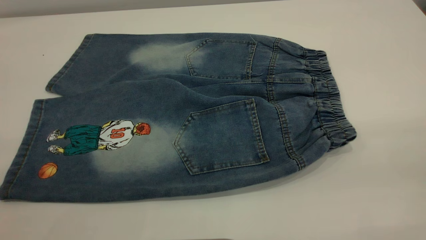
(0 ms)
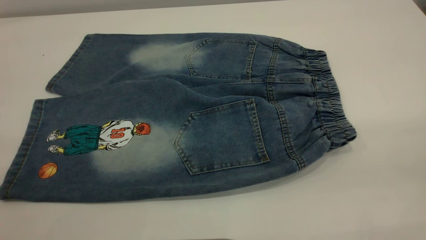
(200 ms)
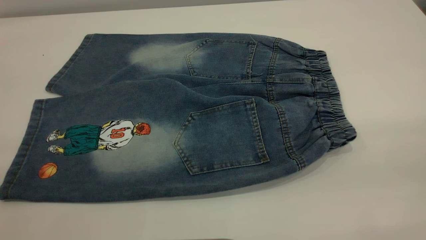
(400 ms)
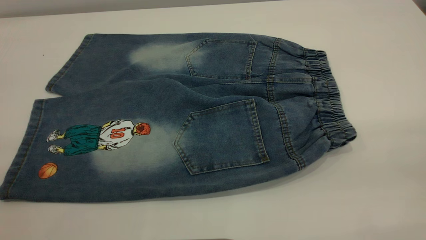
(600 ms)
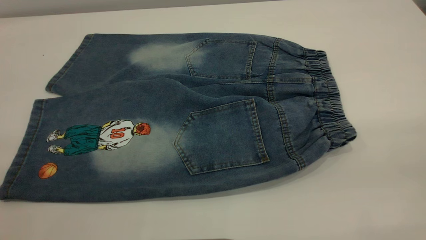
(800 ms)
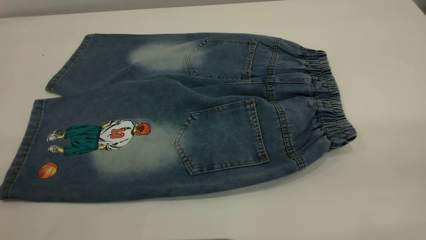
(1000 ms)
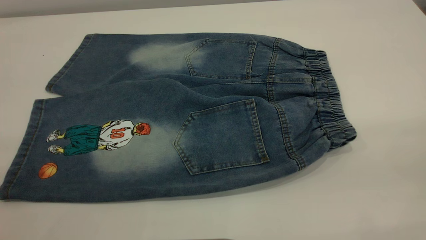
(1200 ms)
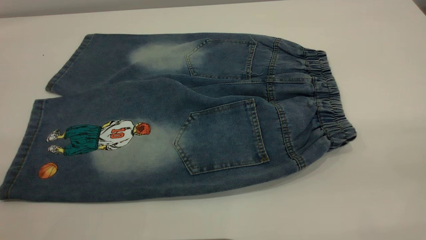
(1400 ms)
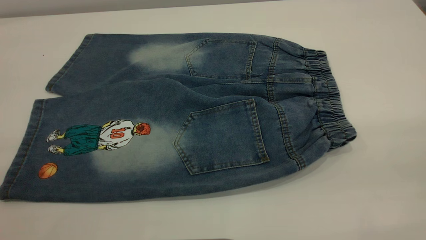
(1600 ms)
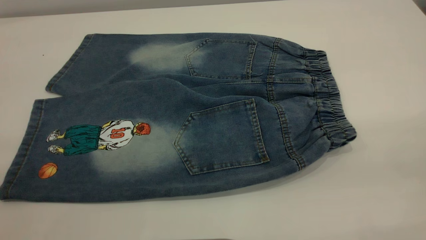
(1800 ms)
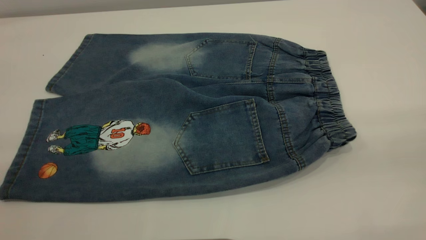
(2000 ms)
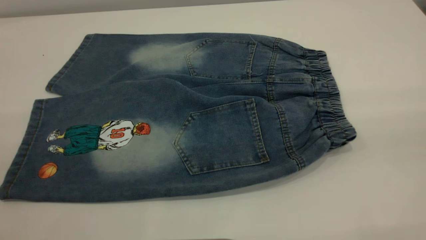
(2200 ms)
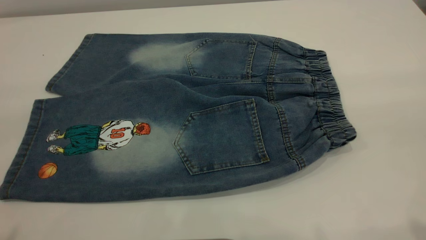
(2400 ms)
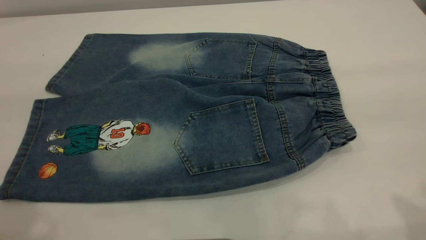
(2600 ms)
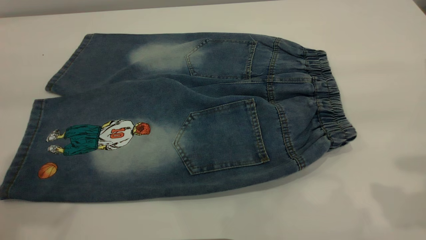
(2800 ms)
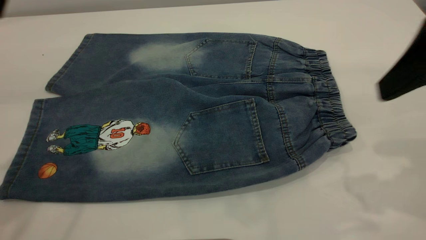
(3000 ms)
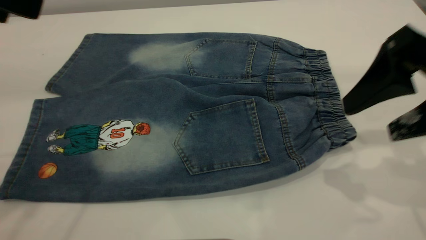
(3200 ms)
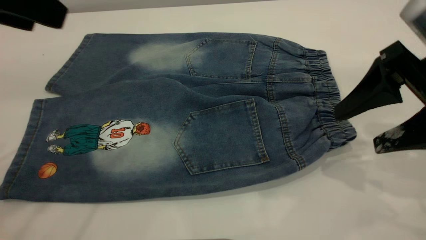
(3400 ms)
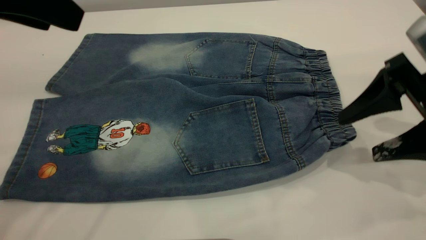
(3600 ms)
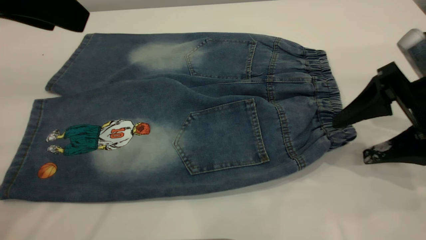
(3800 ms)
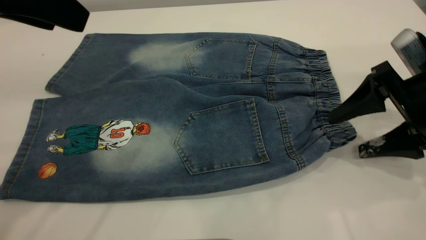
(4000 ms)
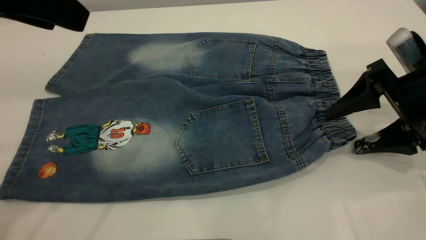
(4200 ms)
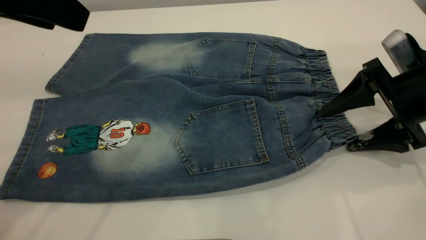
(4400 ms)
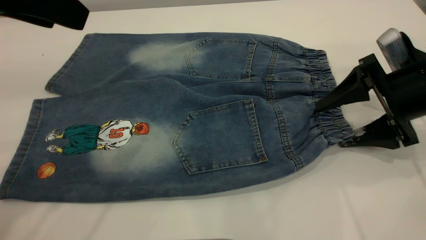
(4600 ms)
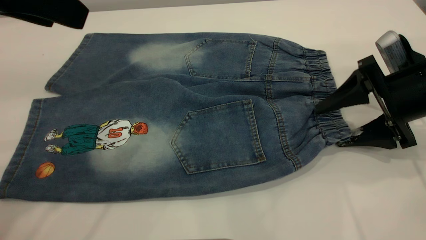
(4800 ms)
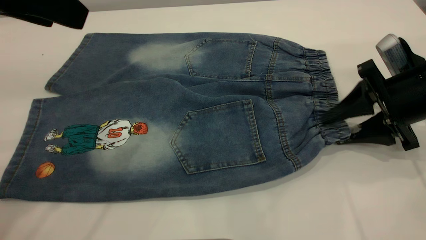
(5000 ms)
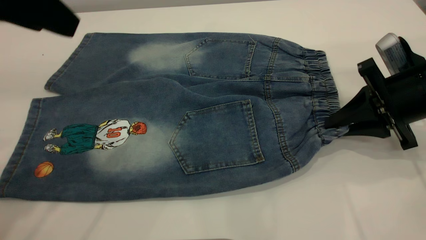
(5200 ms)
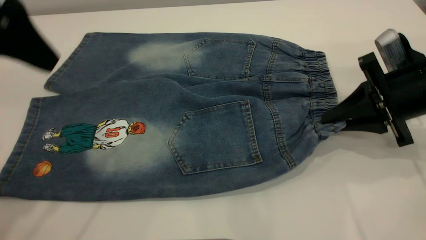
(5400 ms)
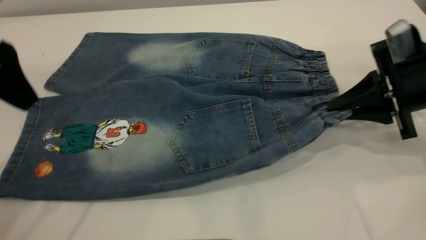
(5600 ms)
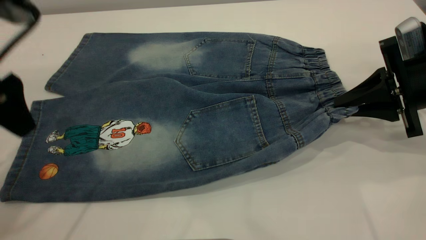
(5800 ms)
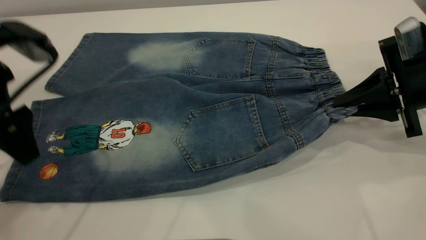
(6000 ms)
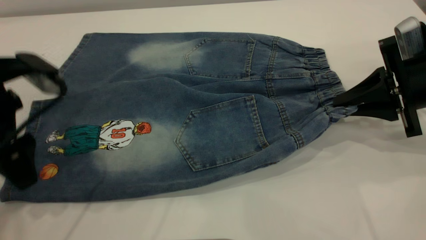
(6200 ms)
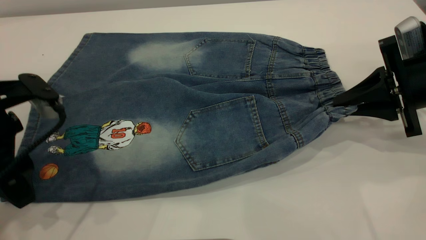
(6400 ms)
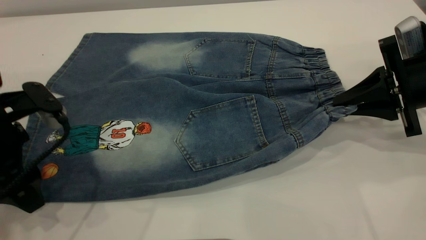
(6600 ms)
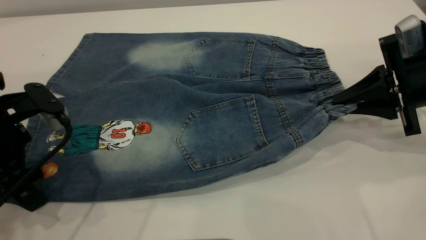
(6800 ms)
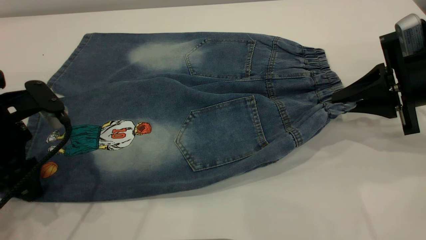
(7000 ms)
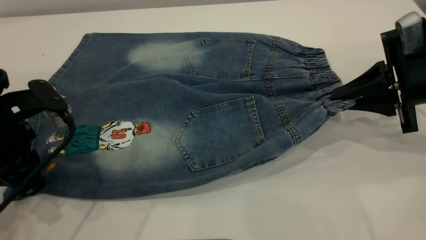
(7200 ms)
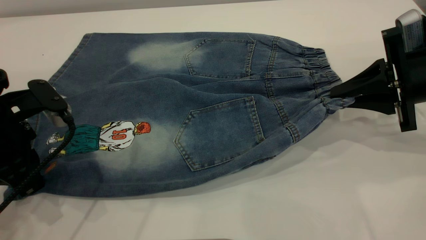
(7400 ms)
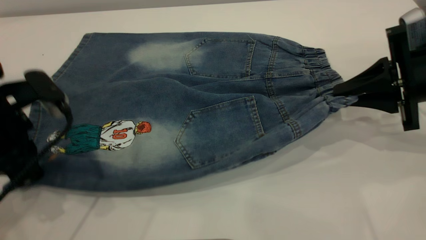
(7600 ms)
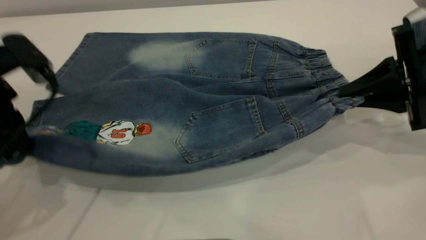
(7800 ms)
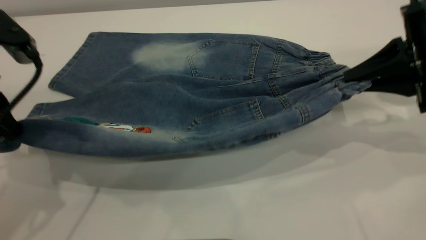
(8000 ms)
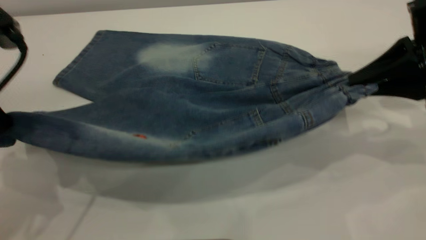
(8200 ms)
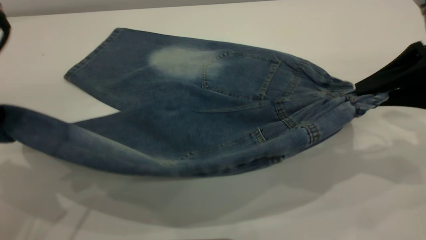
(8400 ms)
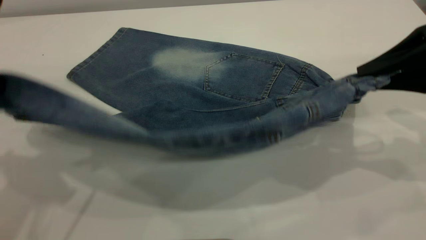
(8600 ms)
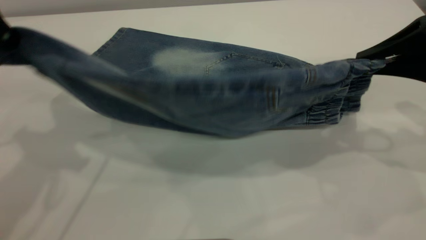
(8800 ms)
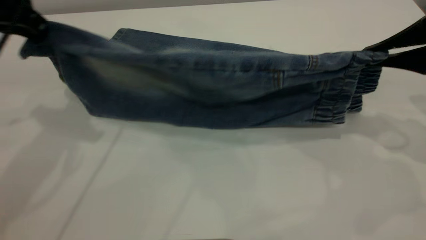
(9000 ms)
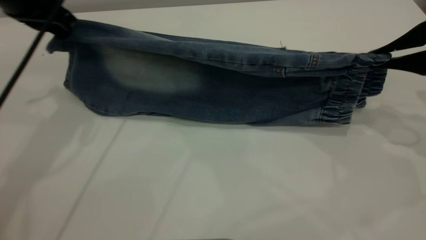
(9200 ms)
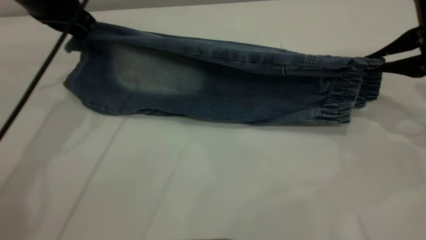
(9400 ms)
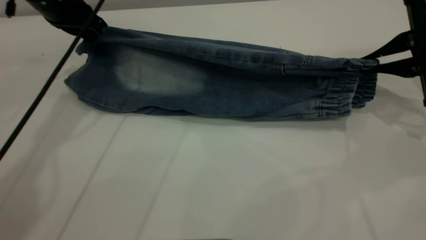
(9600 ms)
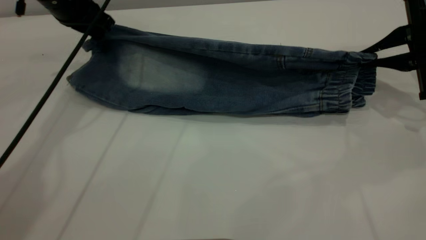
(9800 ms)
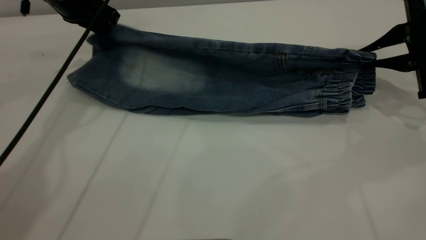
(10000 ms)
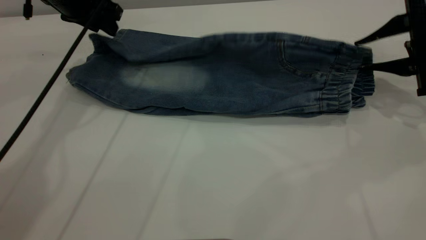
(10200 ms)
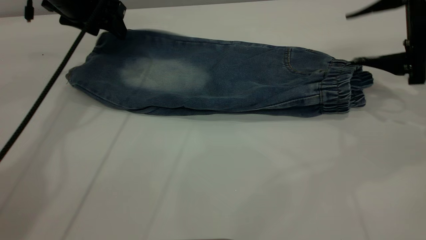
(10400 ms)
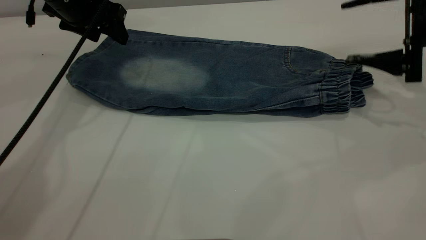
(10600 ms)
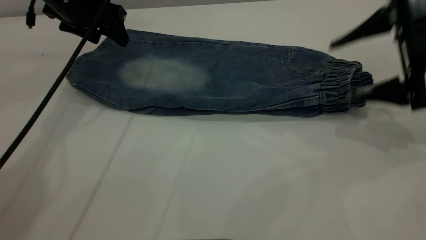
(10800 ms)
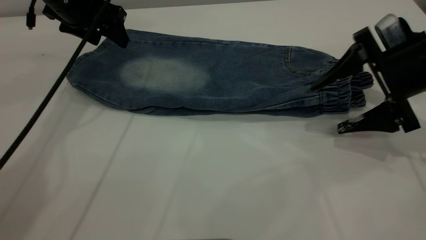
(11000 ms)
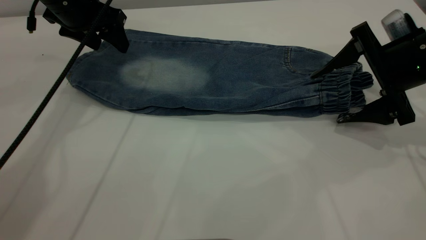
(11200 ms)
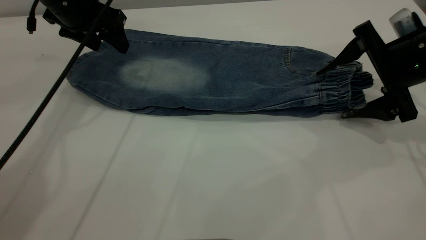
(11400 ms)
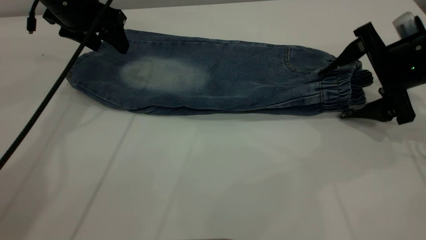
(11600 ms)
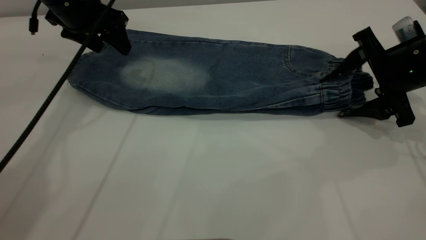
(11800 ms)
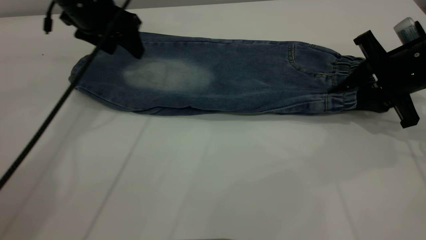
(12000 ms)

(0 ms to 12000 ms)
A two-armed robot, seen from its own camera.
Step, 0 ms - 10400 ms: Fold the bottom of the pants upward.
0 ms - 1600 ms: Neither gripper changes place.
1600 ms - 3000 ms: The right gripper travels forward and downward by roughly 25 cm.
3000 ms - 4400 ms: The left gripper moves some 5 cm; the right gripper moves downward and forward, roughly 15 cm.
4400 ms - 6000 ms: The right gripper closes its fingers, while the left gripper goes some 10 cm downward.
6000 ms - 7600 ms: The left gripper closes up.
7600 ms - 9000 ms: The left gripper goes about 15 cm upward and forward, while the right gripper is displaced upward by approximately 5 cm.
9000 ms - 10400 ms: The right gripper moves forward, roughly 5 cm, and opens its fingers. Meanwhile the left gripper goes some 15 cm forward and downward, and opens.
10400 ms - 12000 ms: The right gripper changes place by approximately 5 cm, and closes.

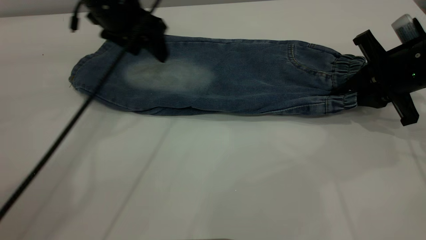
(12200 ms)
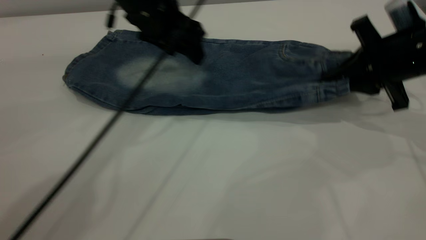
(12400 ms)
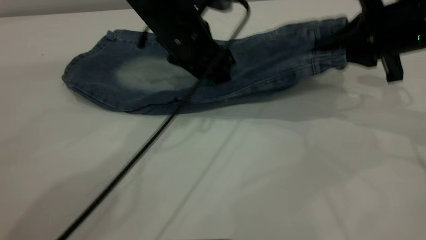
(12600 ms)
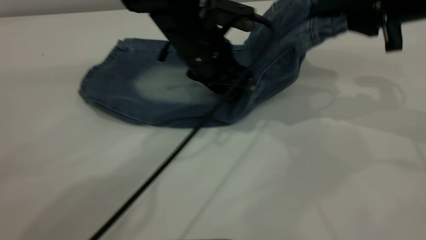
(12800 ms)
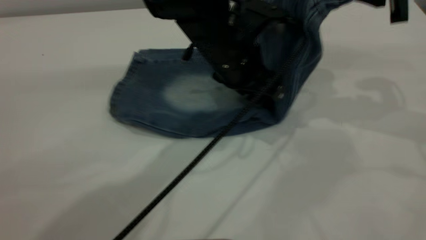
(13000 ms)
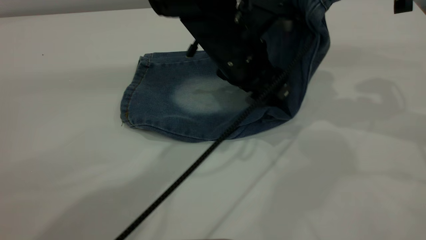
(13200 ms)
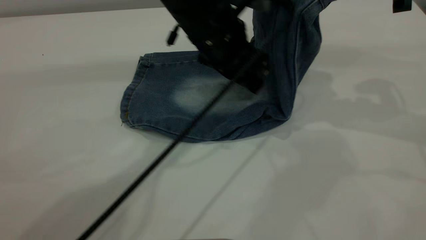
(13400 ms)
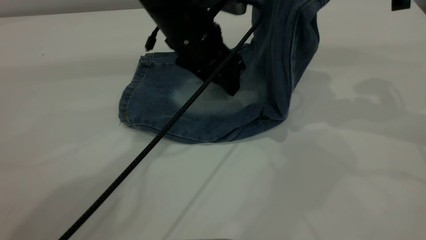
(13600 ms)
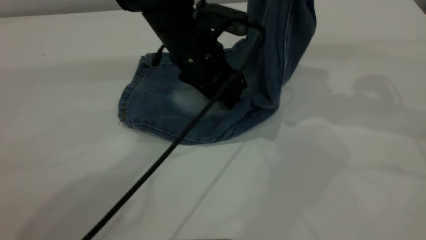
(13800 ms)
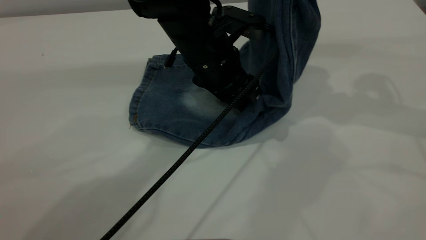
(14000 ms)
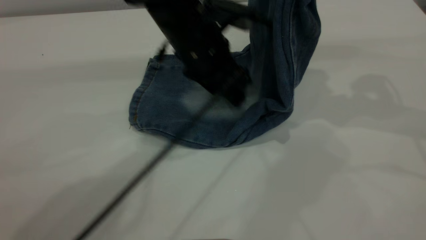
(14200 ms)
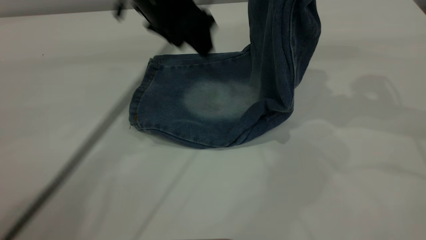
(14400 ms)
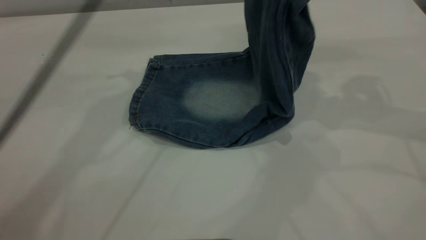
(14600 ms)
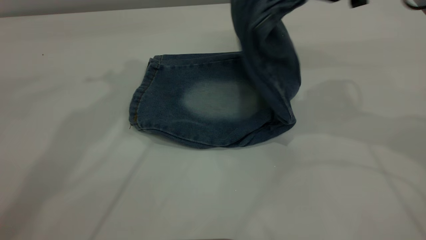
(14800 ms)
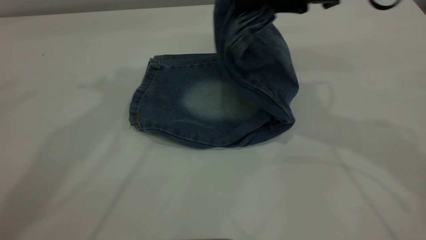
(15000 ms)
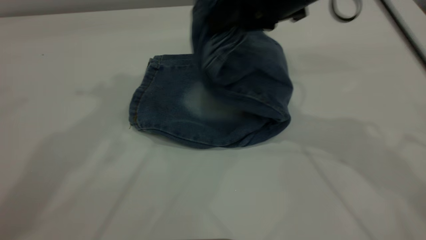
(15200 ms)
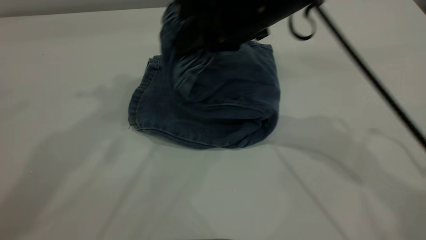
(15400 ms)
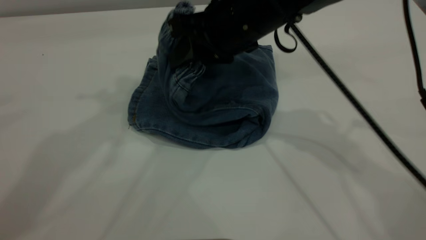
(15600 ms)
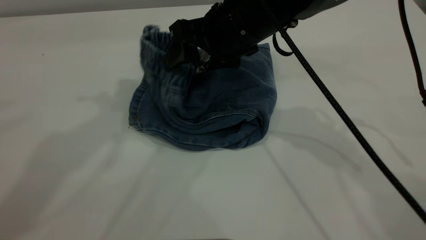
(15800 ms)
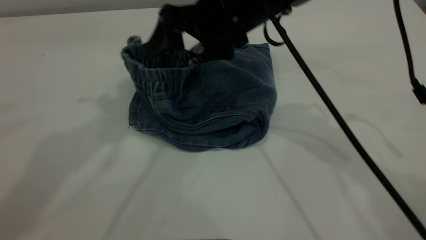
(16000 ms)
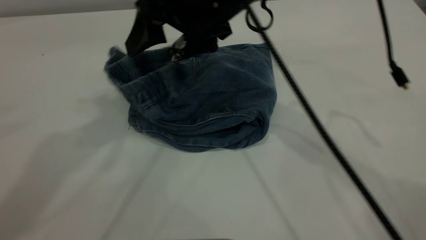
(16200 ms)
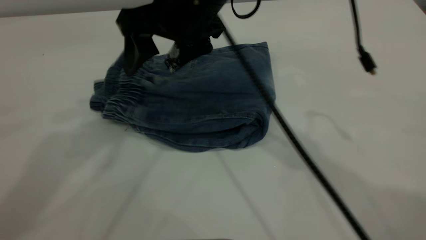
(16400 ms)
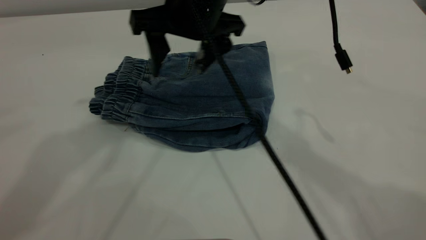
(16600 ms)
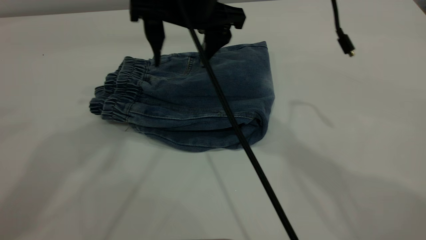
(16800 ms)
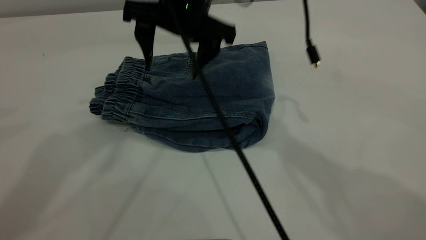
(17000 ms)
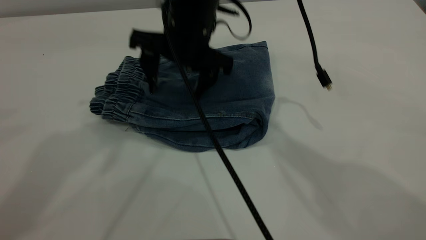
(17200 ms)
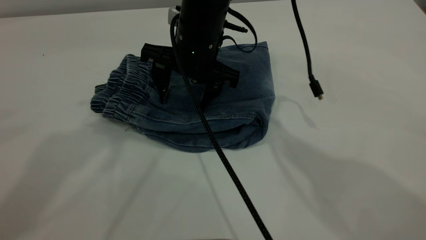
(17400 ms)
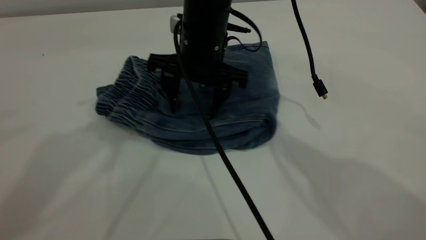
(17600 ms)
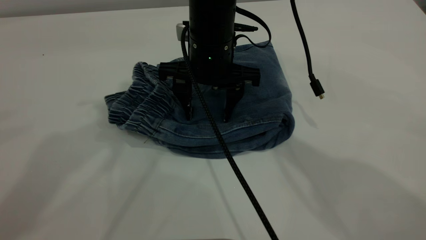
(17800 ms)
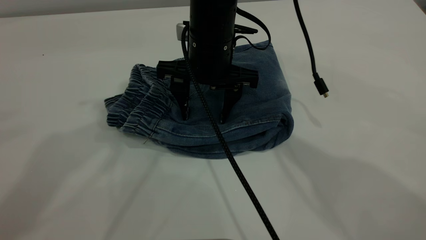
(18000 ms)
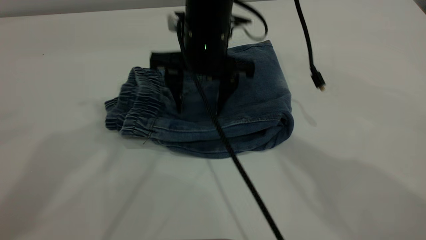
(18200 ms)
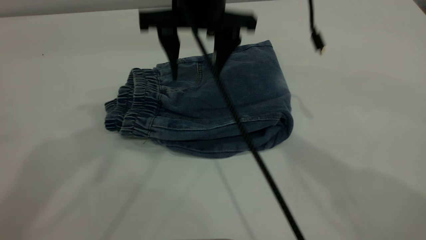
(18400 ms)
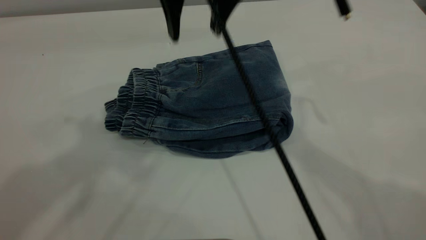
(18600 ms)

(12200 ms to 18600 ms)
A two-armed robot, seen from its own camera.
Step, 12200 ms - 16600 ms: Fold your pants from right to left.
12200 ms - 13800 ms: The right gripper heads upward, covering some 15 cm. Meanwhile the left gripper heads to the right, downward and backward, covering some 15 cm.
13800 ms - 15400 ms: The right gripper moves to the left, roughly 20 cm, while the left gripper is displaced upward and to the left by roughly 35 cm.
15400 ms - 17000 ms: The right gripper shifts approximately 10 cm to the left, and opens.
17000 ms - 18600 ms: The right gripper shifts about 10 cm upward; the left gripper shifts approximately 10 cm backward and upward.
